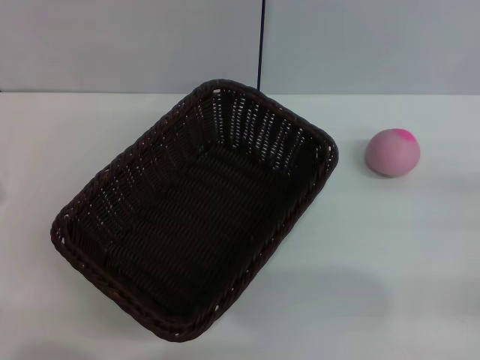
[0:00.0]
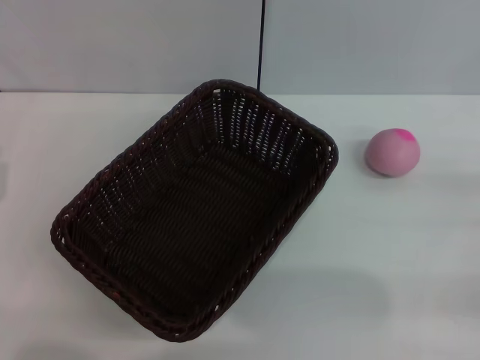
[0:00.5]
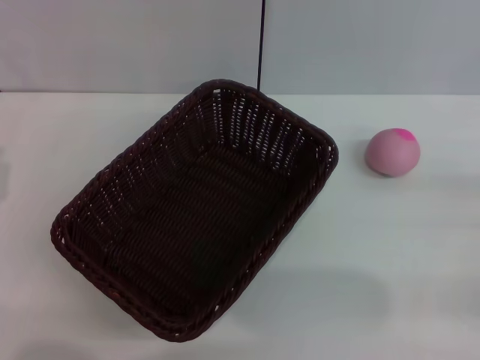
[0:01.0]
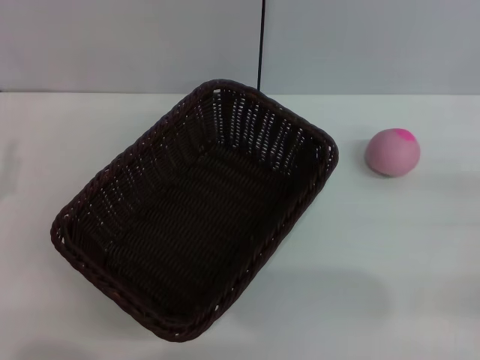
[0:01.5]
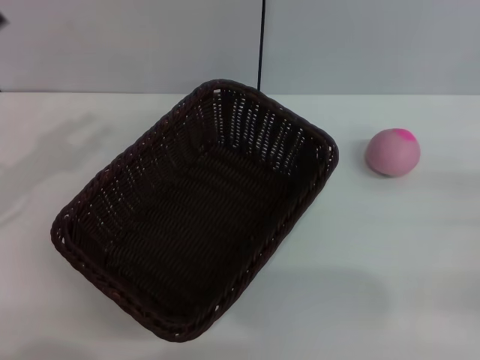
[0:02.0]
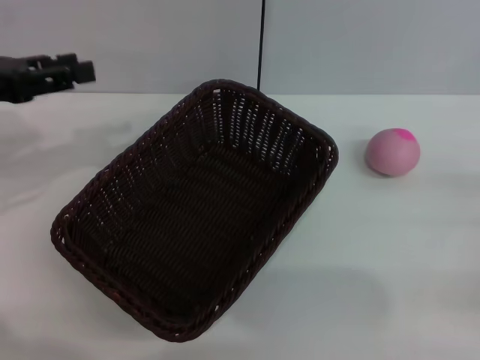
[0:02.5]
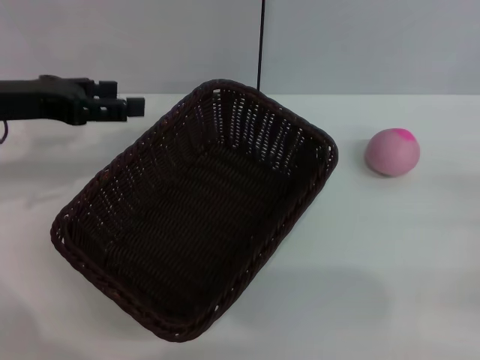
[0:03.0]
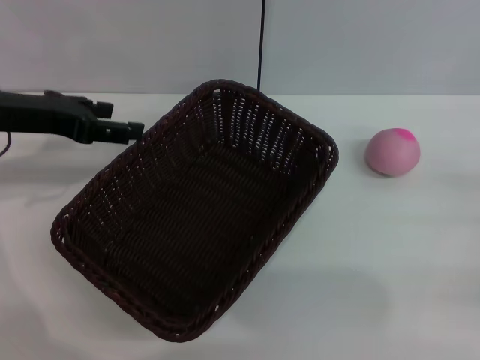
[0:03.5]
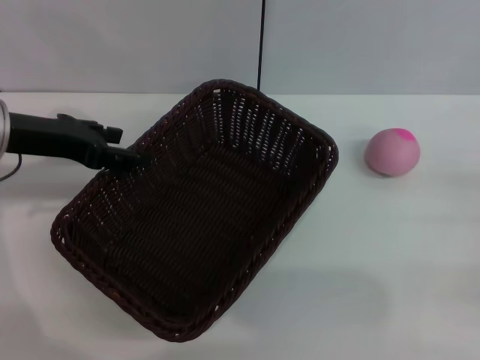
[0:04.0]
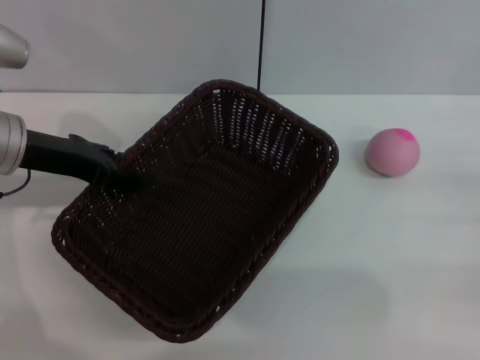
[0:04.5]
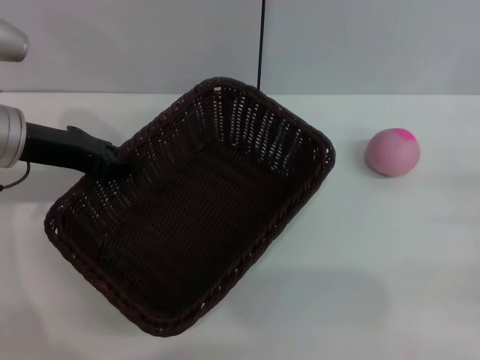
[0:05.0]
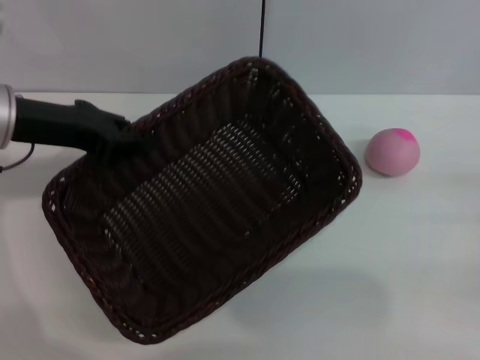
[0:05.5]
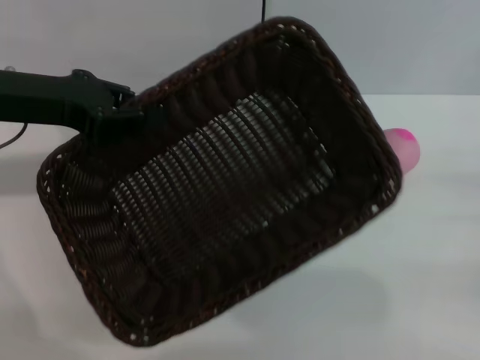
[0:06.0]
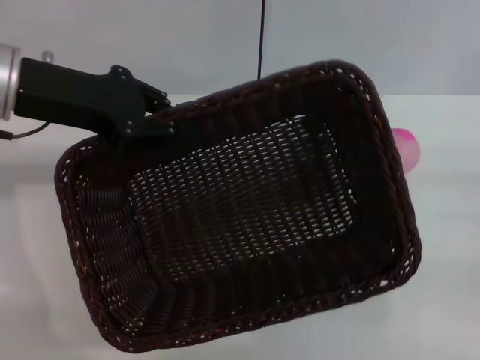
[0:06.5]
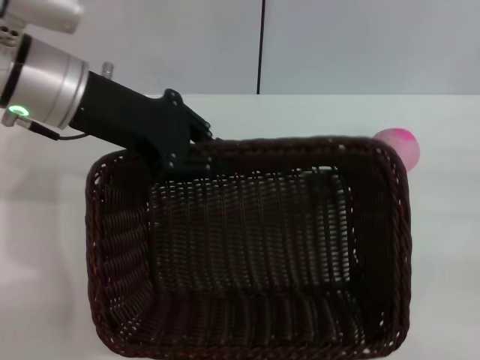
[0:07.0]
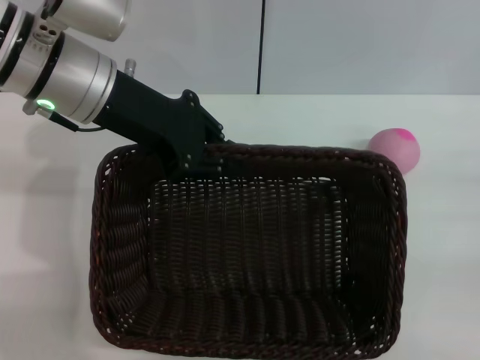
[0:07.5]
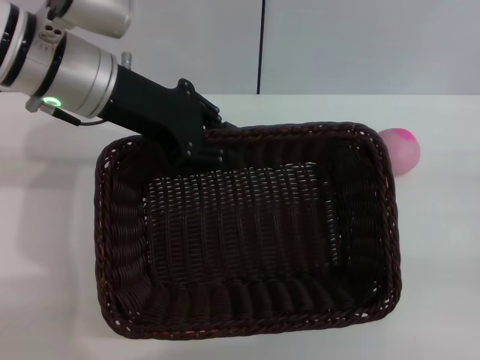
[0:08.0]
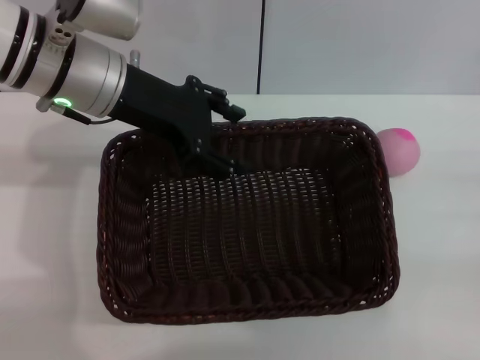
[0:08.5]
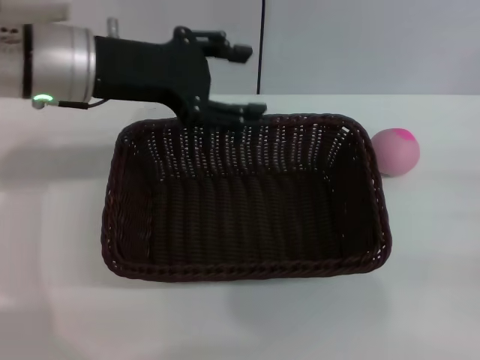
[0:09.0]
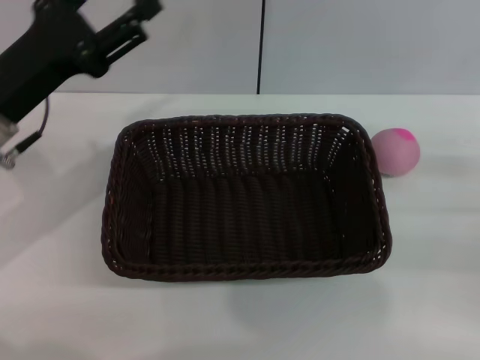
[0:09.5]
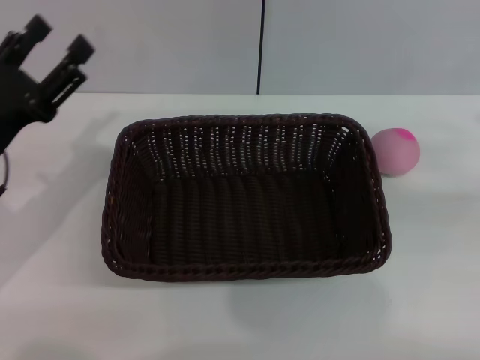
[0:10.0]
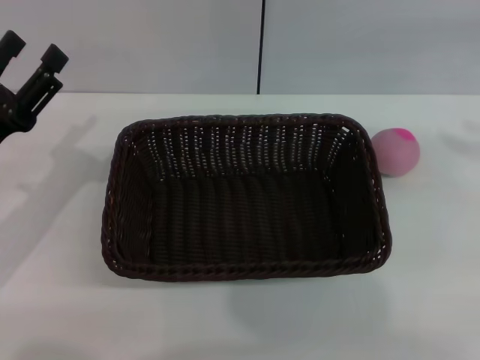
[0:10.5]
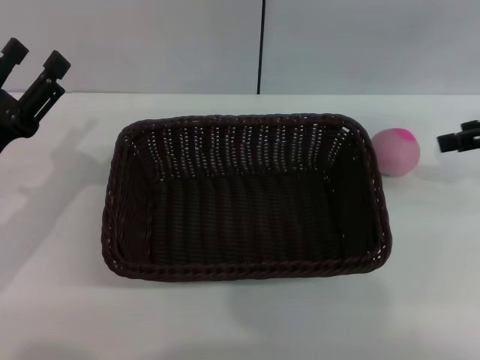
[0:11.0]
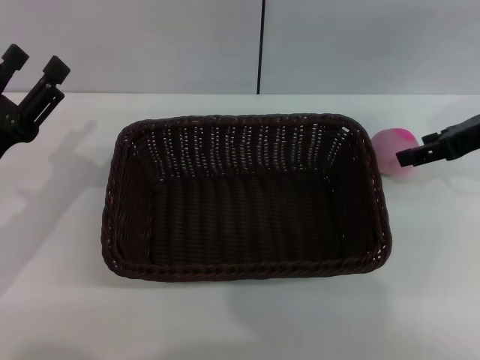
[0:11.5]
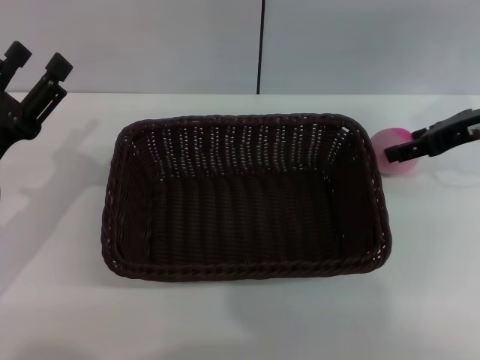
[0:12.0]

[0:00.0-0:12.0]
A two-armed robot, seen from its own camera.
Step, 0:00.0 to 0:05.5: Pick up the dark basket with the left gripper.
0:02.0 to 0:04.0: The left gripper shifts roughly 10 cm to the right and forward, and opens its fingers.
0:04.0 to 0:06.0: The left gripper closes.
0:06.0 to 0:08.0: The left gripper moves to the right, roughly 10 cm.
0:08.0 to 0:10.0: The right gripper travels upward by about 10 cm. The left gripper goes some 20 cm downward, to the left and backward, and opens.
0:10.0 to 0:12.0: The right gripper shifts about 15 cm to the left and forward.

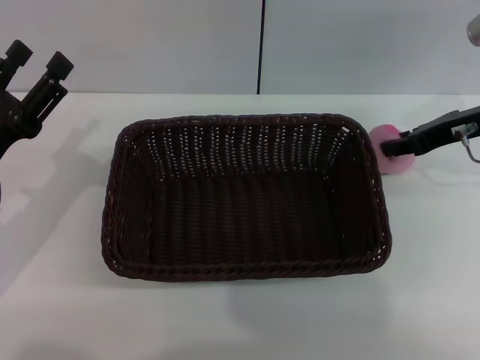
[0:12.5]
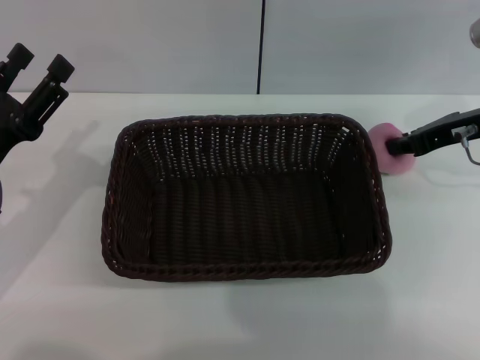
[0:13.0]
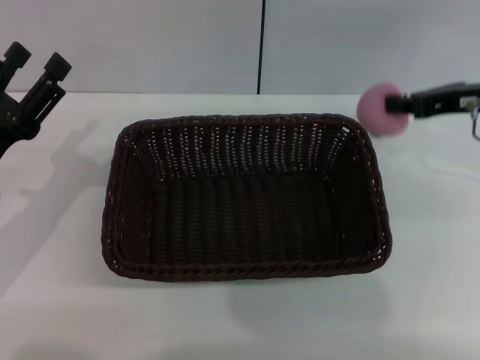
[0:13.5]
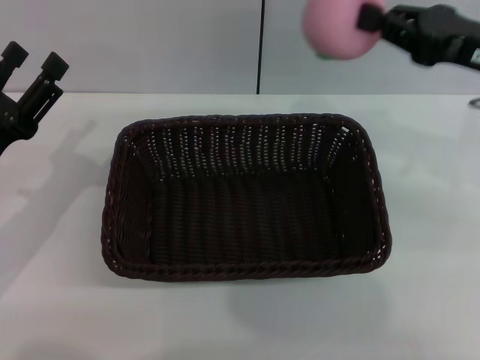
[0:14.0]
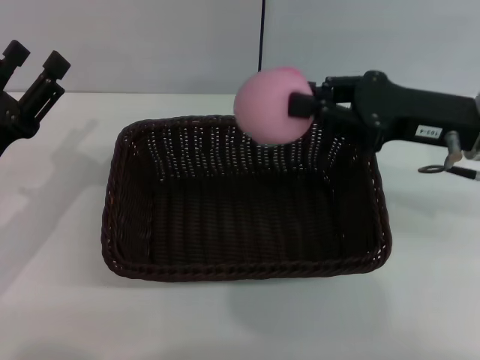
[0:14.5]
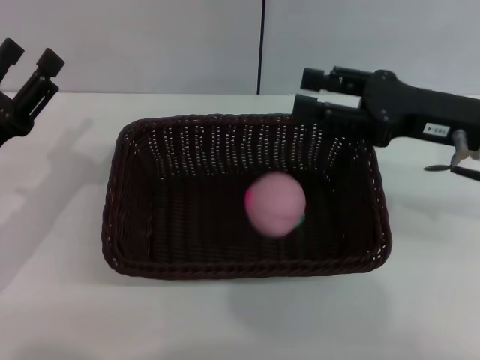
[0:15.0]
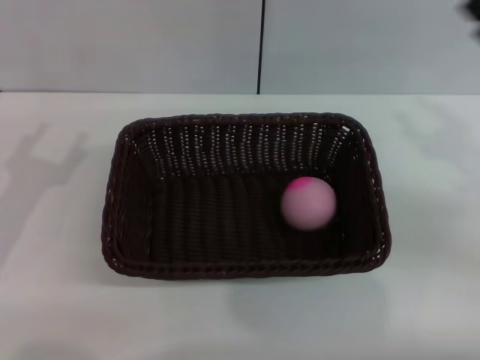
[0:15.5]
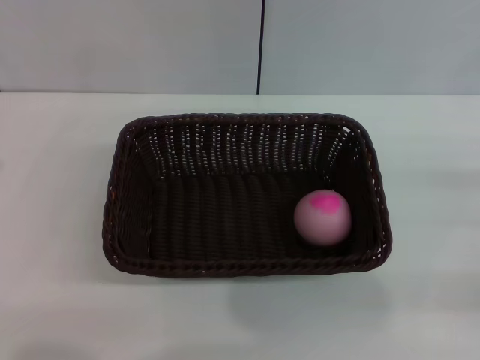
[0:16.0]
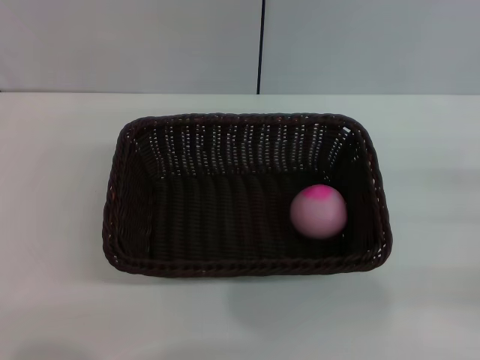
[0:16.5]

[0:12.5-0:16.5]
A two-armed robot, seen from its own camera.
Step, 0:14.0 to 0:15.5: Place the peach into the basket with the left gripper.
0:12.5 to 0:14.5: The right gripper is displaced backward by approximately 5 cm, and closes its fingers.
0:14.5 to 0:16.5: The left gripper is displaced to the left and backward by approximately 10 cm; the right gripper goes some 20 cm to the right, backward and downward, and opens up.

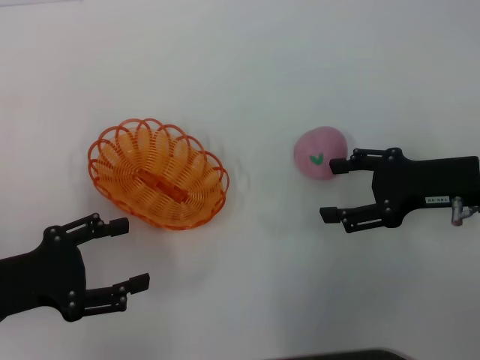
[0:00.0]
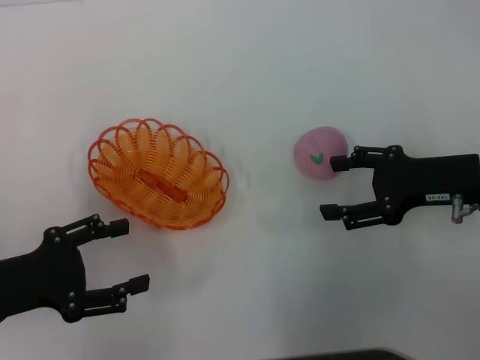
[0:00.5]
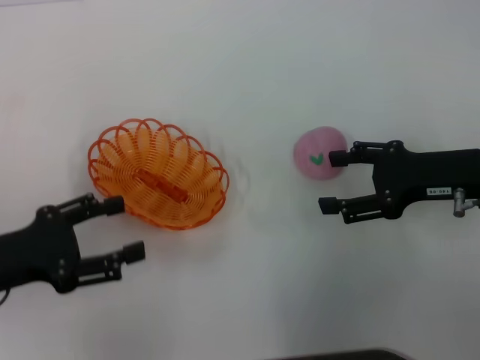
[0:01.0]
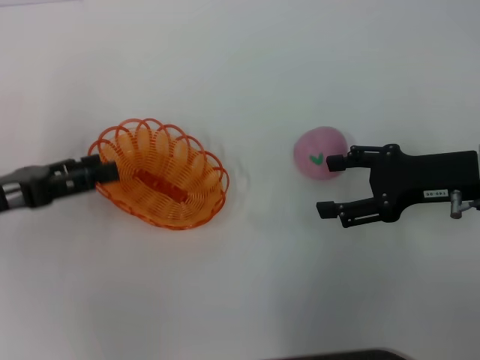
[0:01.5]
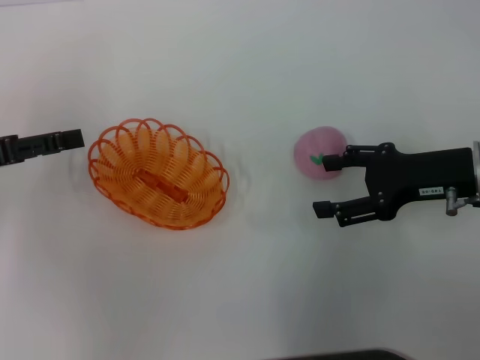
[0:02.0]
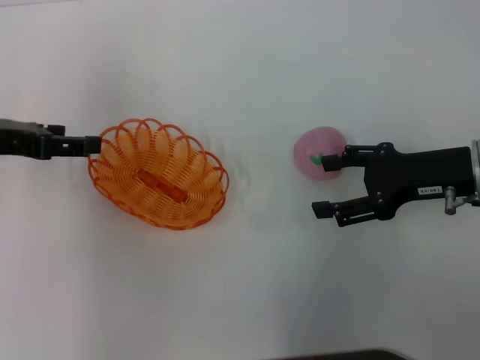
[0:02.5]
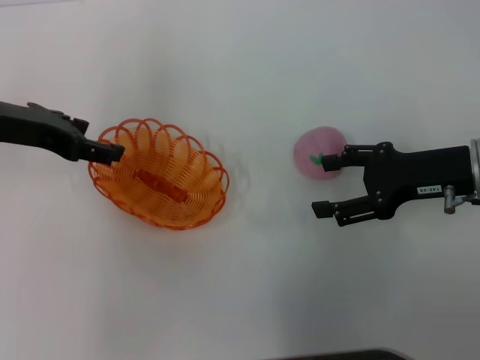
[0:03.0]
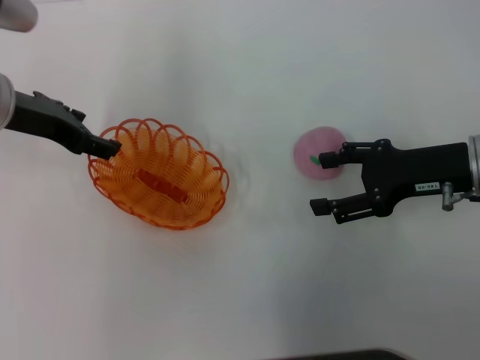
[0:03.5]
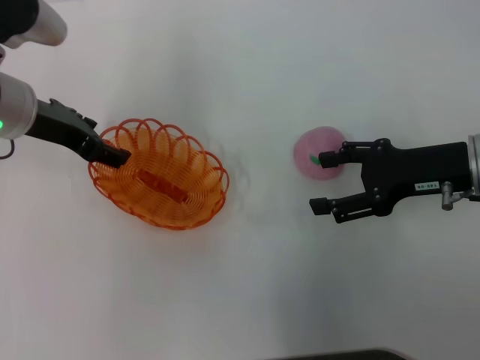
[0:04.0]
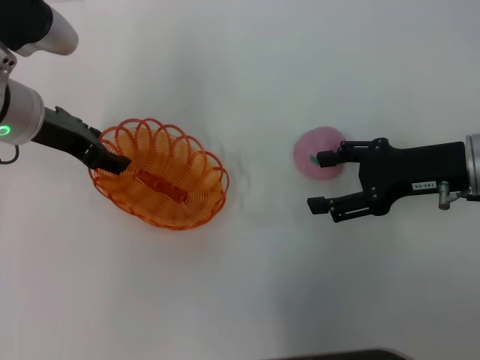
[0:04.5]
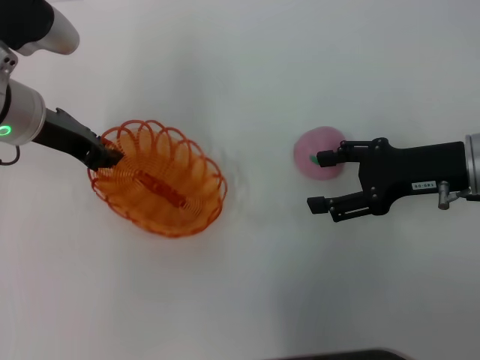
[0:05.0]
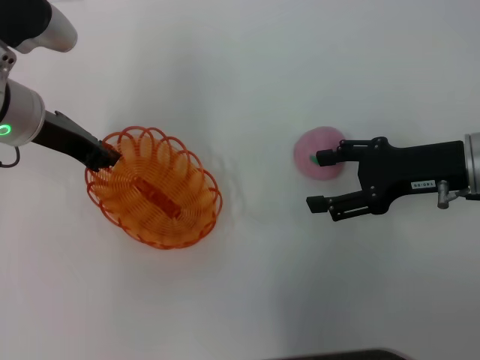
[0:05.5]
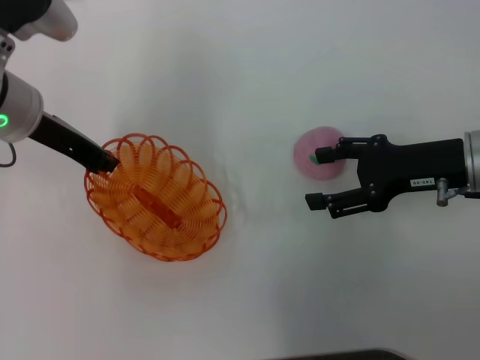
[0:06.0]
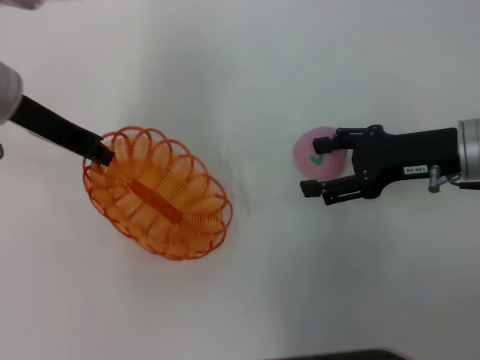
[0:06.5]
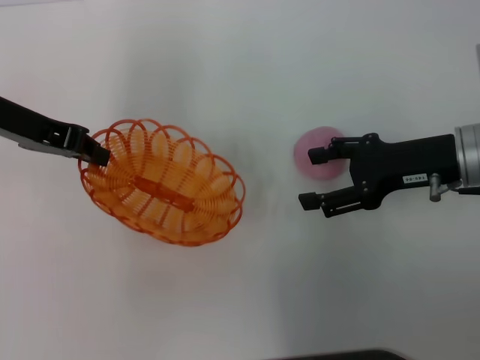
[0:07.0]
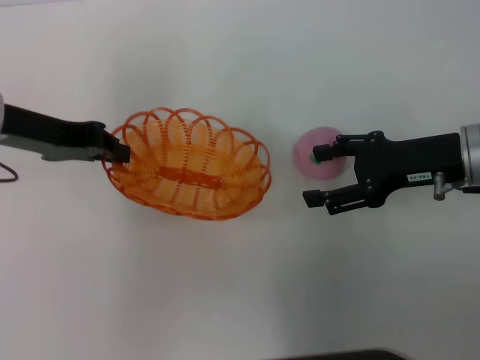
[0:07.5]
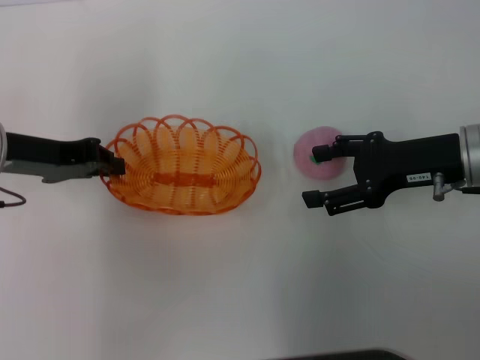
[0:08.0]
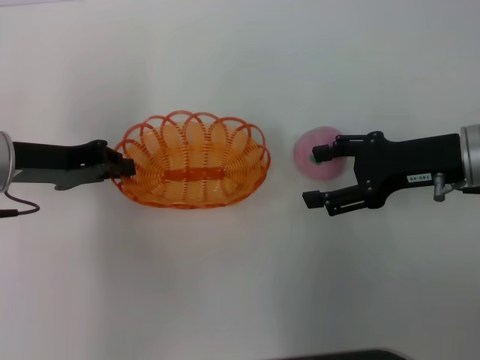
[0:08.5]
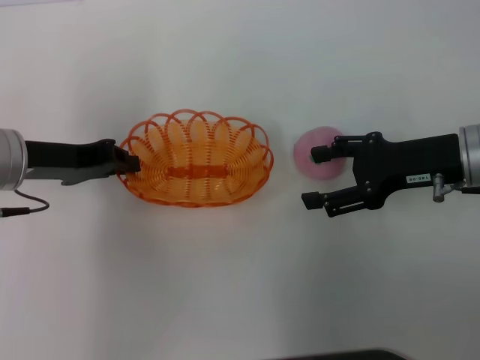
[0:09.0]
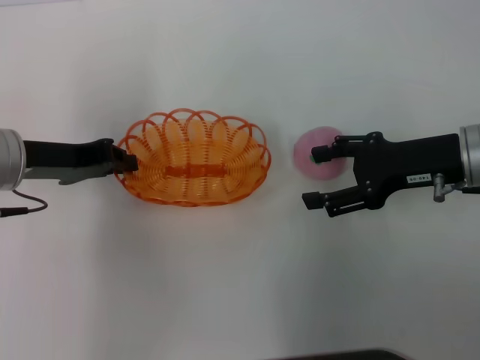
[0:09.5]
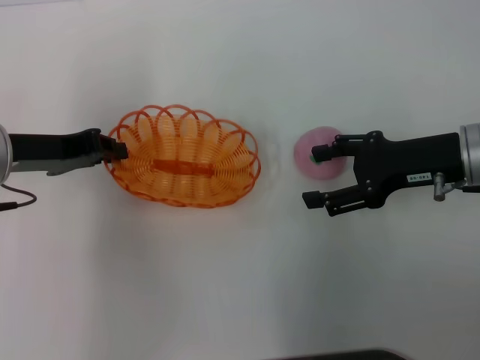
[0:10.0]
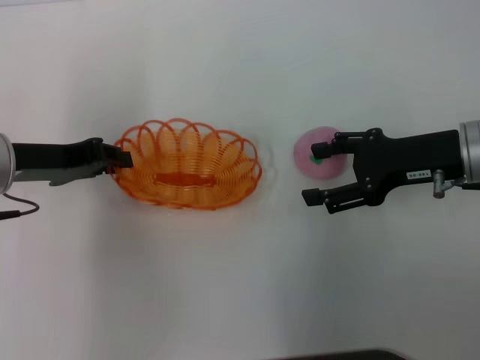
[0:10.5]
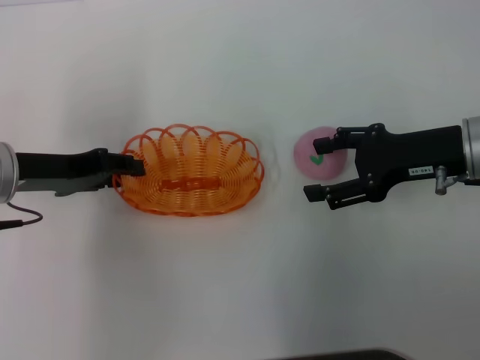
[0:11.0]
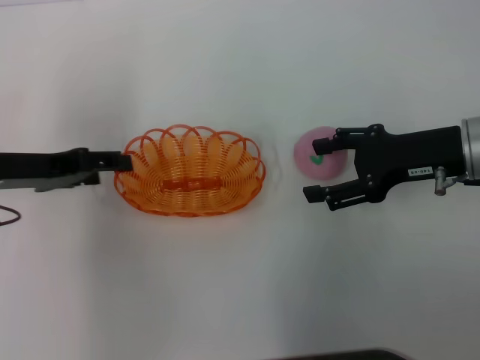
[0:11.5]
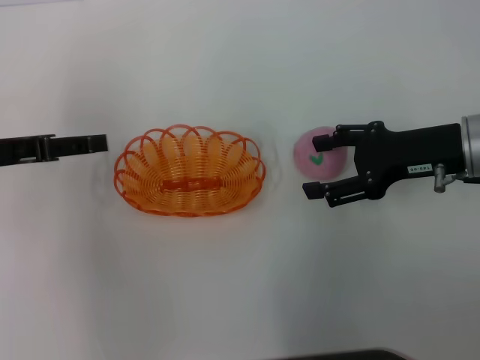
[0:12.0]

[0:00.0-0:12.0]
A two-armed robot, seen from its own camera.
Step, 0:00.0 to 0:06.5: Pick up the basket with the left gripper.
Step, 0:07.0 to 0:11.5: Place the basket in the center of view with the left gripper.
0:00.0 to 0:02.0: The left gripper travels forward and upward by some 10 cm.
0:02.0 to 0:04.0: The left gripper moves to the right and forward, approximately 15 cm.
0:04.0 to 0:06.0: The left gripper closes.
0:06.0 to 0:08.0: The left gripper moves some 5 cm.
0:08.0 to 0:10.0: There are only small adjustments of the grippers.
0:10.0 to 0:12.0: The left gripper opens up.
